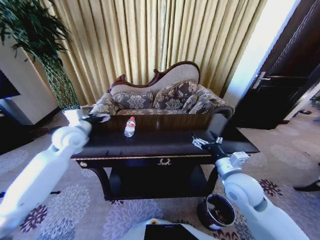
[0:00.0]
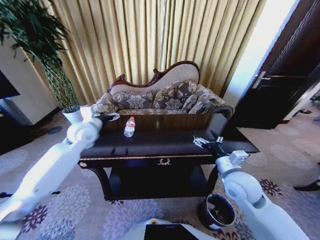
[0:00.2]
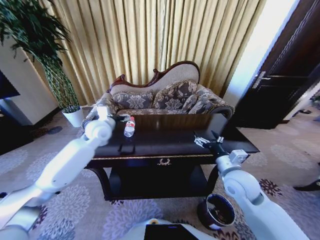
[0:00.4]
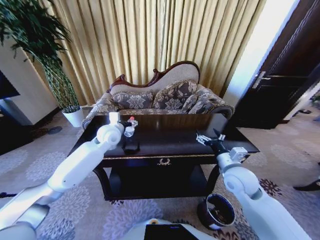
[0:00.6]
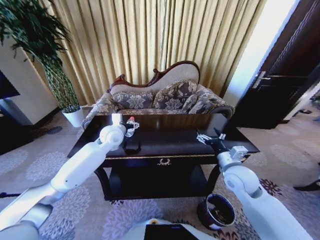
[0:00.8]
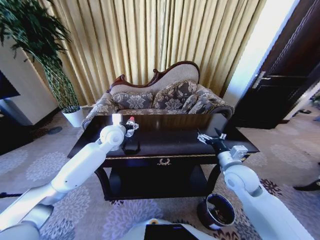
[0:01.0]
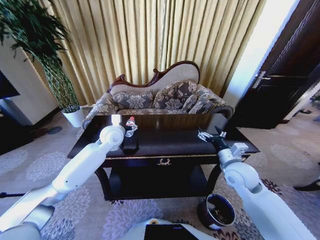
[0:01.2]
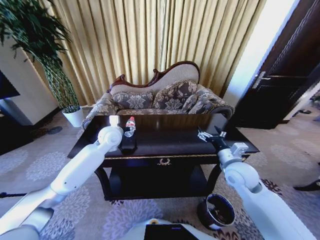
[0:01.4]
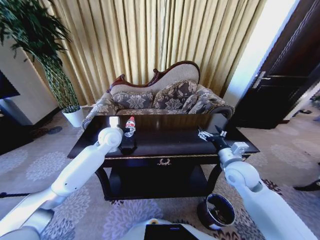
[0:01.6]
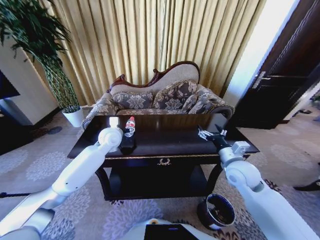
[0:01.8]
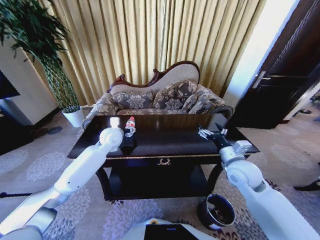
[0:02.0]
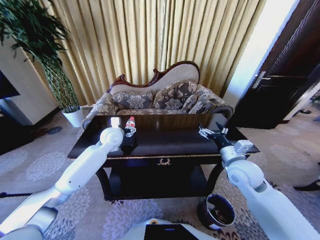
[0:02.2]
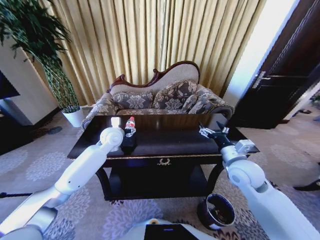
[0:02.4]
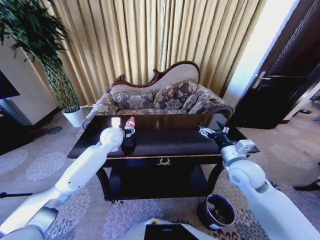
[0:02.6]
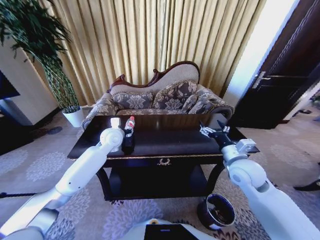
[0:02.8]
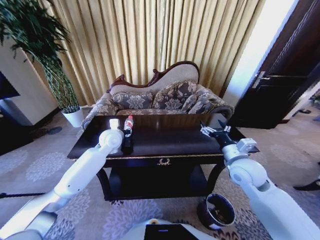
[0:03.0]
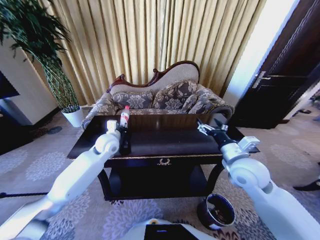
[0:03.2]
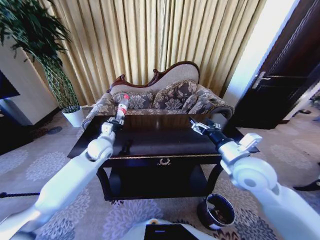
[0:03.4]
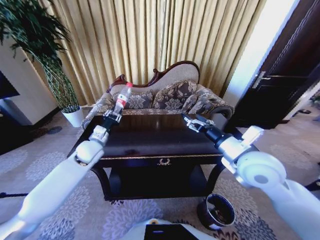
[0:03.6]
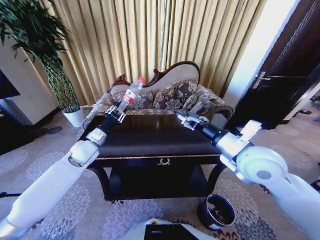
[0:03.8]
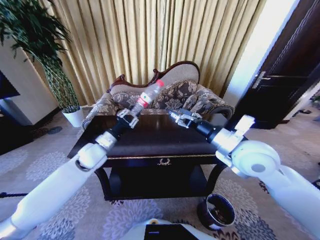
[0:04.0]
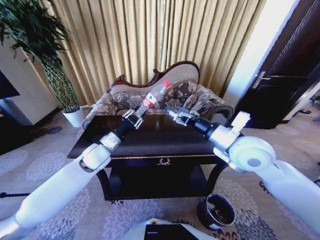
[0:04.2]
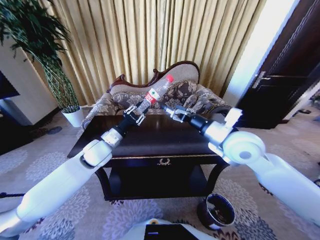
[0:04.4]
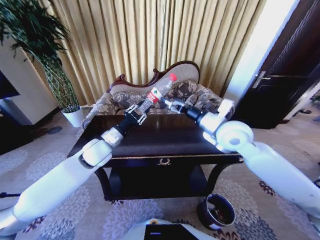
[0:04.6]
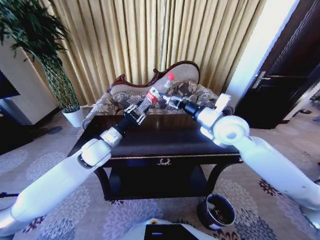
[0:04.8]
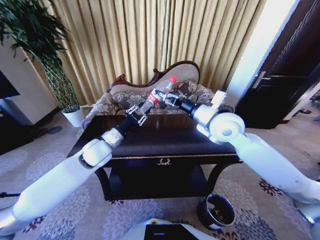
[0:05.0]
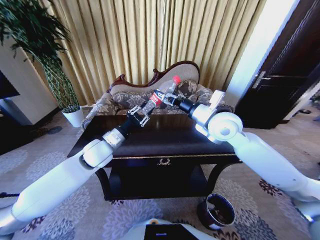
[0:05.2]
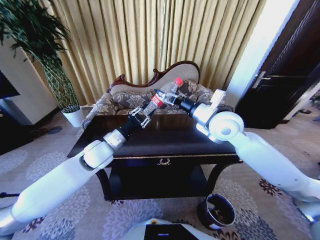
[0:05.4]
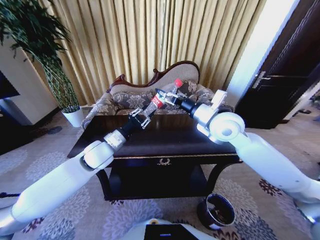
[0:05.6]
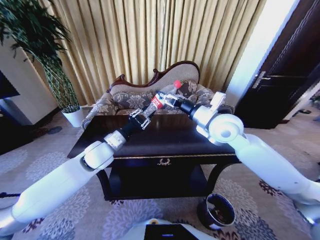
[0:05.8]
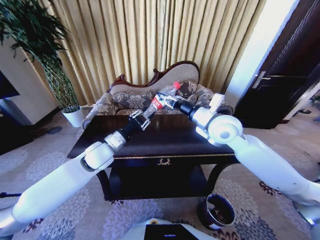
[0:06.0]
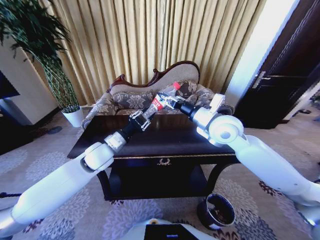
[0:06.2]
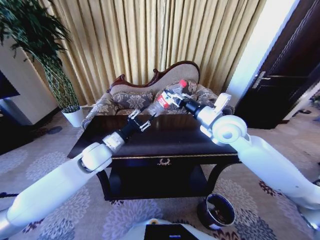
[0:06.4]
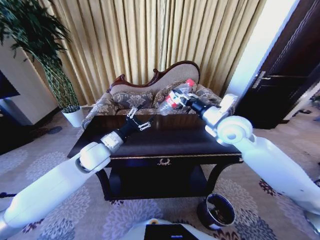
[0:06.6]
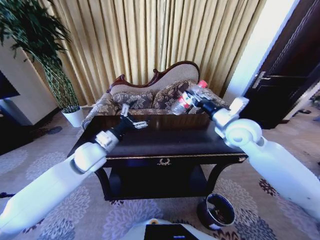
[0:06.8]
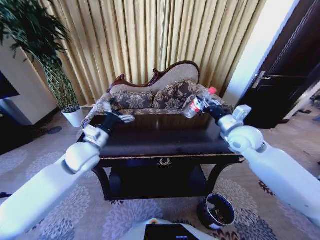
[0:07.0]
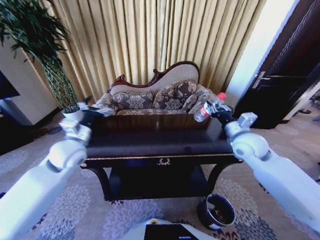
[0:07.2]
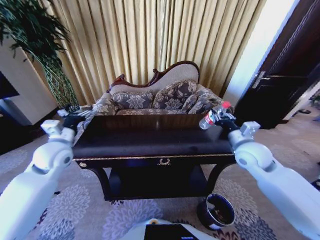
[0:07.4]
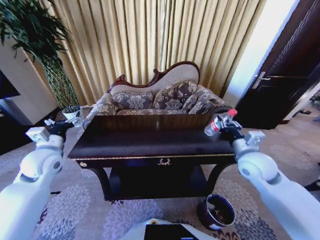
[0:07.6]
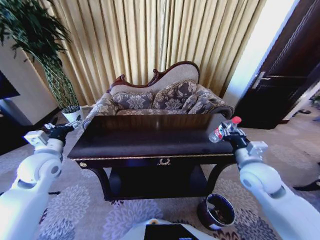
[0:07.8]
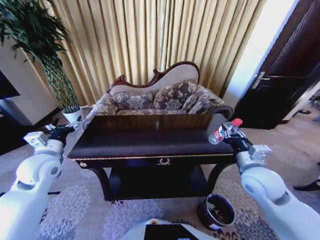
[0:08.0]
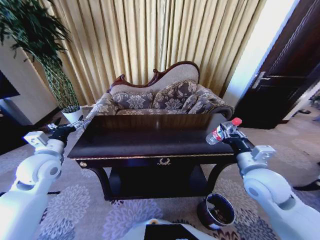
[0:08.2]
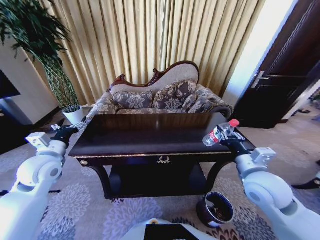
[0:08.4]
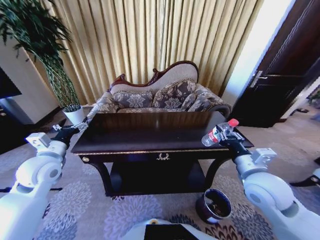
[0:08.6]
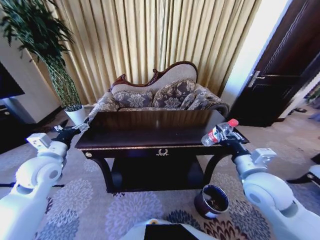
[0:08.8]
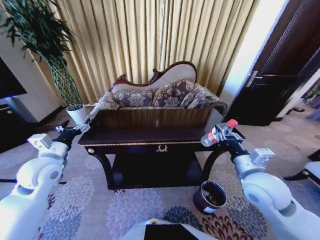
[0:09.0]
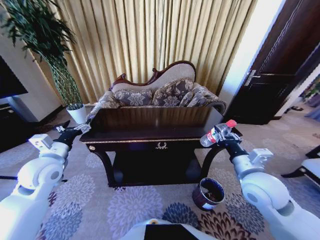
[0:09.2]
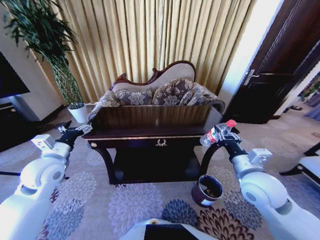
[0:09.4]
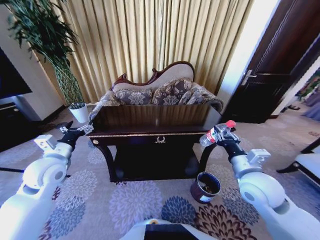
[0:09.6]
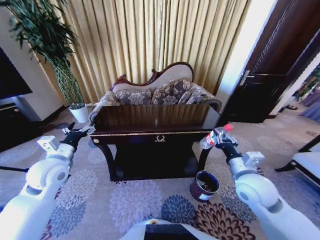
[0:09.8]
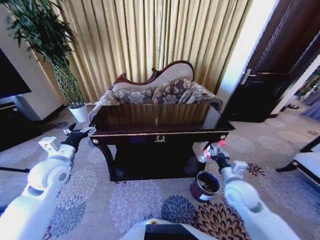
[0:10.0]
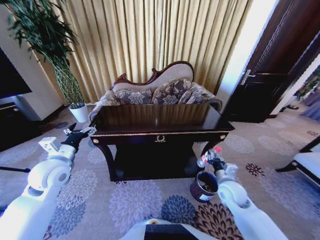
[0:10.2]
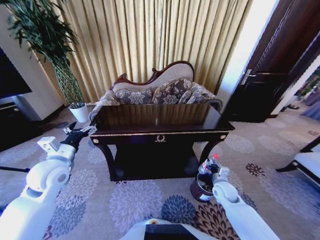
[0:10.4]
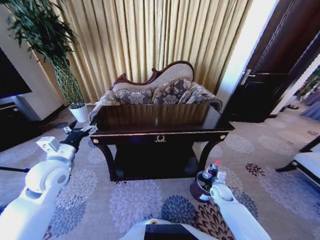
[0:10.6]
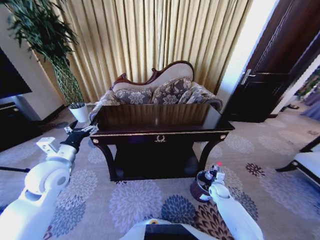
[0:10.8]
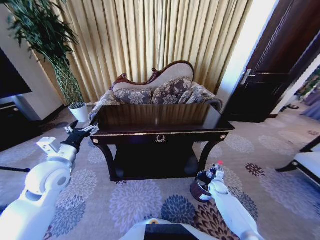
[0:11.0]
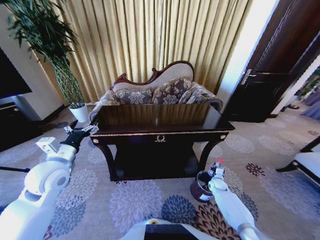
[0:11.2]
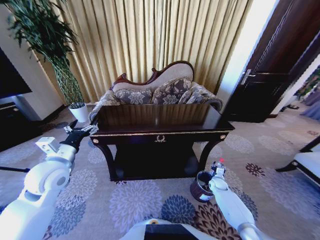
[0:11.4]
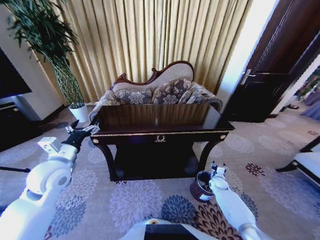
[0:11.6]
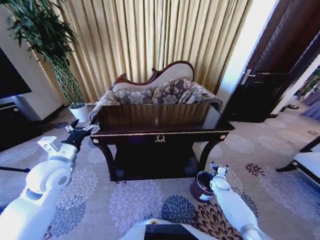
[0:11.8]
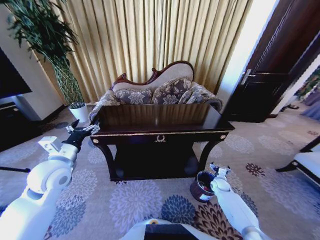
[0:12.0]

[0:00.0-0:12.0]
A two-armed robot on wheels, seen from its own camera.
Task of the whole recording: Move to the front of the table and place the trash on the table into the trash bin.
0:00.0 to 0:01.6: The left gripper moves to the right, about 10 cm, while the right gripper moves forward, about 5 cm.
0:01.6 to 0:03.0: The left gripper closes its fingers.
0:03.0 to 0:04.4: The left gripper shifts approximately 10 cm backward. The right gripper is displaced upward and to the left by about 15 cm.
0:04.4 to 0:06.0: The right gripper goes about 5 cm forward, and closes.
0:06.0 to 0:07.6: The left gripper heads to the left, covering approximately 15 cm, and opens up. The right gripper moves to the right, downward and backward, roughly 15 cm.
0:07.6 to 0:09.0: The right gripper moves backward, approximately 10 cm.
0:09.0 to 0:10.4: The right gripper travels downward by about 25 cm.
0:10.4 to 0:12.0: The right gripper travels downward, to the right and forward by roughly 15 cm, and opens up.

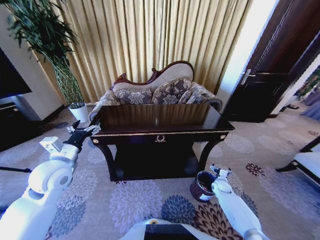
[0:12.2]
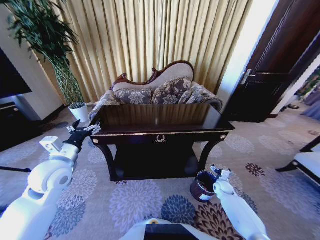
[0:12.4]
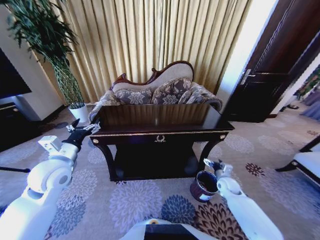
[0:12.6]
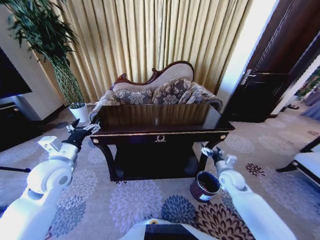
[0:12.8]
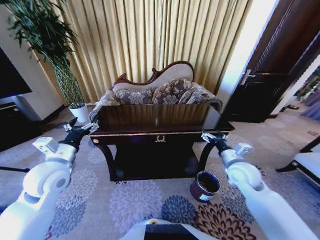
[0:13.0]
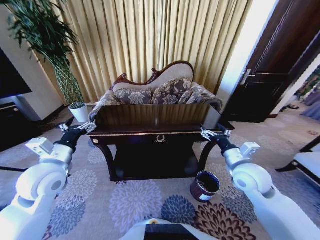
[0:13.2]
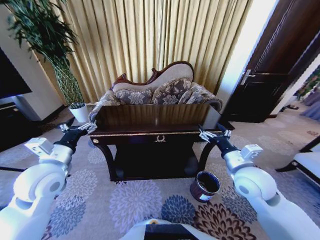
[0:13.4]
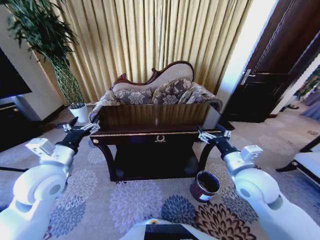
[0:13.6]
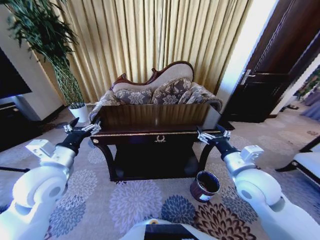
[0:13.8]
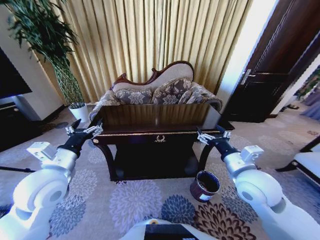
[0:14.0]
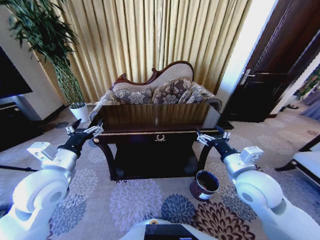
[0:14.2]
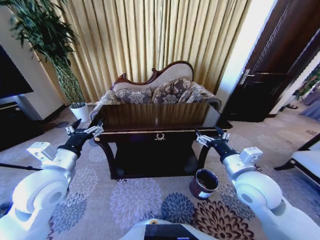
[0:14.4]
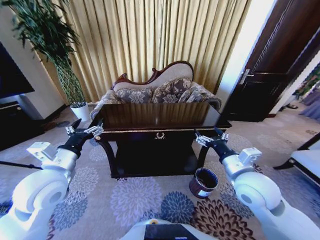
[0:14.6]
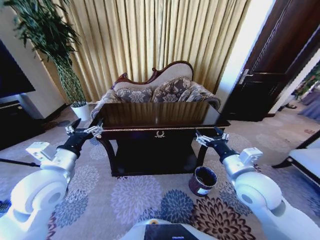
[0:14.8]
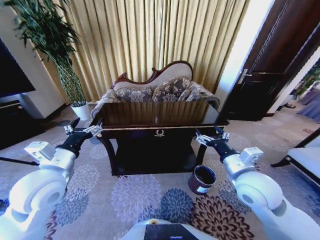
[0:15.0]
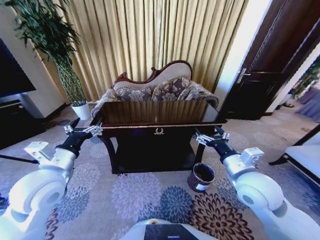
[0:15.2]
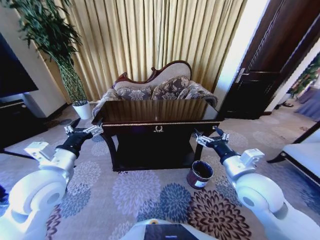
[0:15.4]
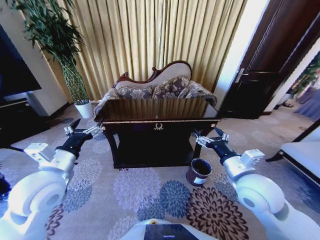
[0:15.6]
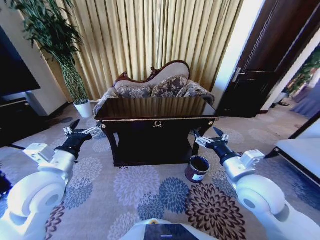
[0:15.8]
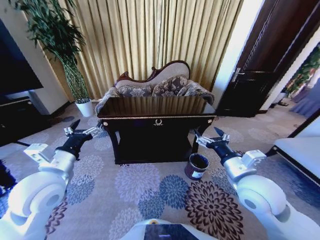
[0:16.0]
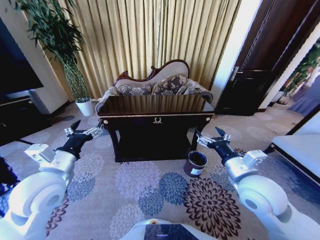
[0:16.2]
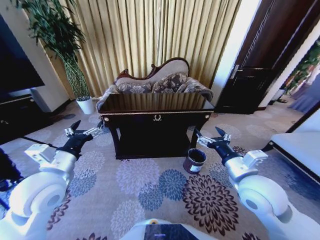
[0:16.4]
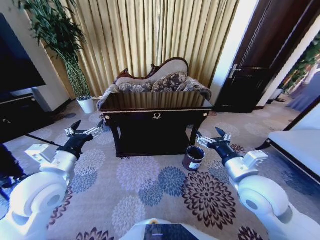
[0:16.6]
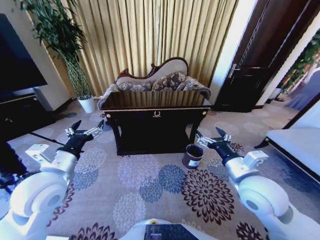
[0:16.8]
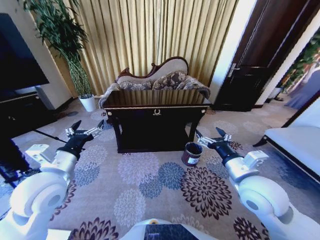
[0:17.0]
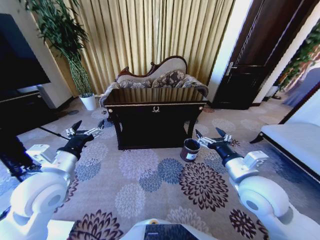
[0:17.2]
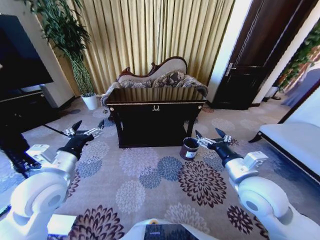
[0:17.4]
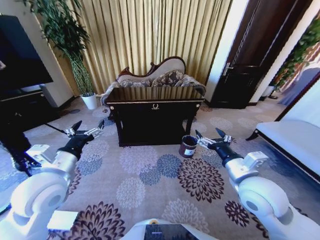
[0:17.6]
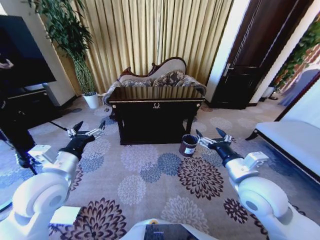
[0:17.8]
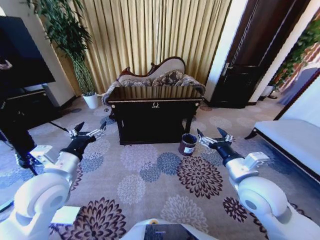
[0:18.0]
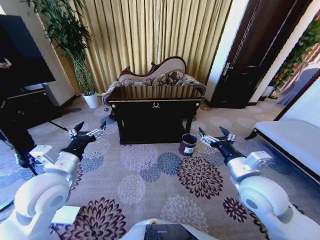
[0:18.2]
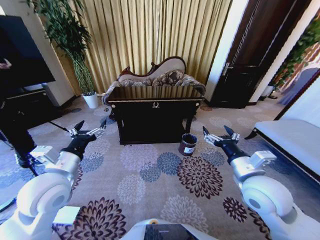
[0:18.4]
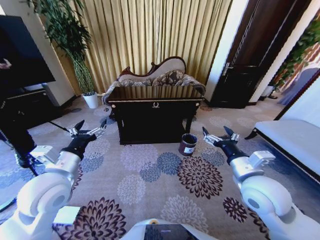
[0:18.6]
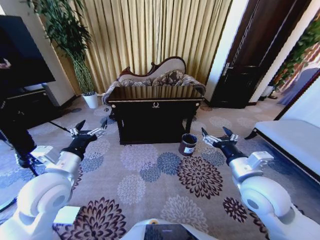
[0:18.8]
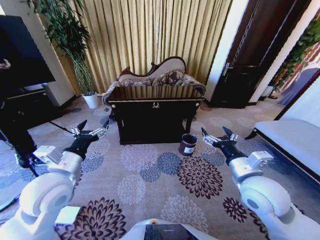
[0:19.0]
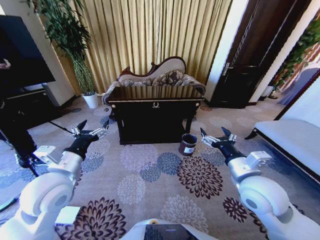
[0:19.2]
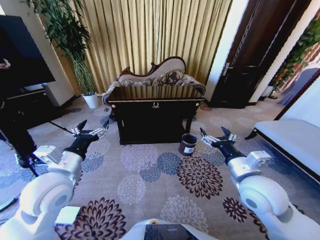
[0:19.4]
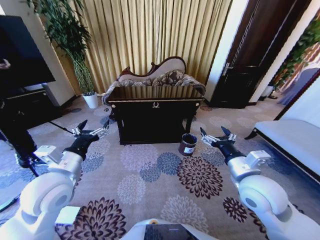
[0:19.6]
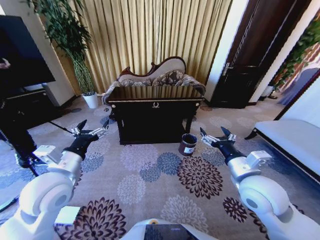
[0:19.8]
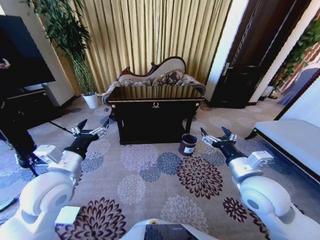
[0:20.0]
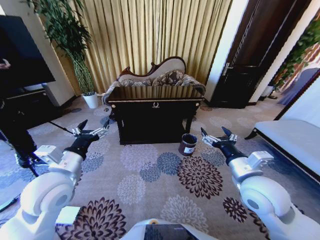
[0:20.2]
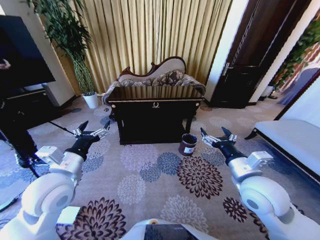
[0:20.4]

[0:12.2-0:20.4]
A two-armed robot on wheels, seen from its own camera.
Task of the whole recording: Move to the front of the table and place the trash on the table into the trash bin.
0:12.2 to 0:13.8: The left gripper moves approximately 5 cm. Meanwhile the right gripper travels upward by about 35 cm.
0:18.8 to 0:20.4: Both grippers stay put.
